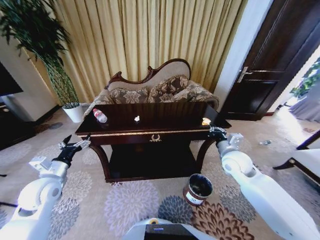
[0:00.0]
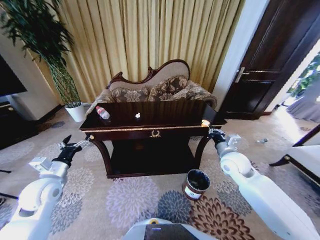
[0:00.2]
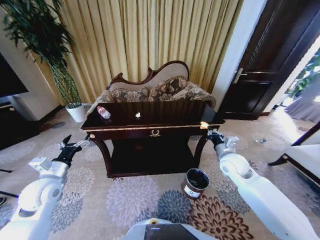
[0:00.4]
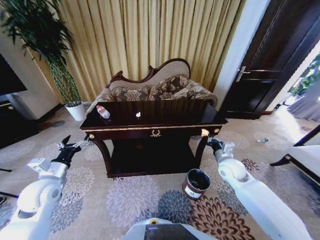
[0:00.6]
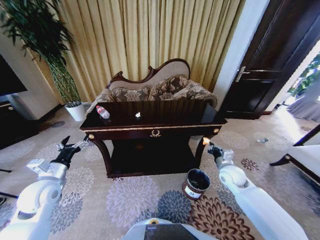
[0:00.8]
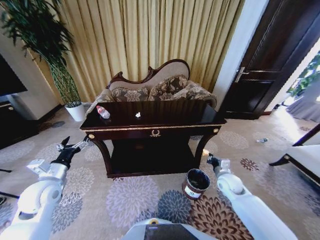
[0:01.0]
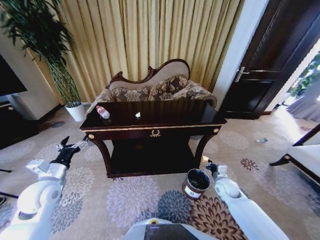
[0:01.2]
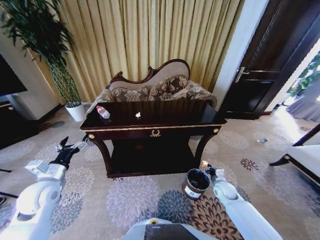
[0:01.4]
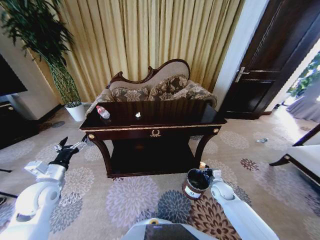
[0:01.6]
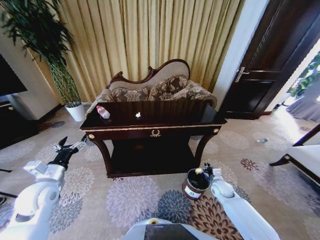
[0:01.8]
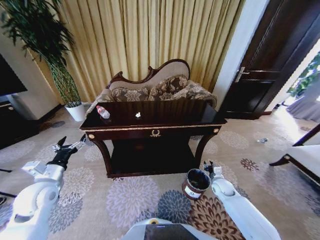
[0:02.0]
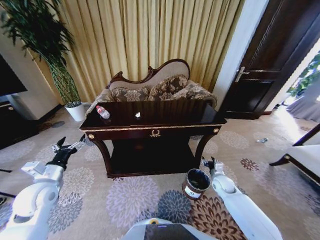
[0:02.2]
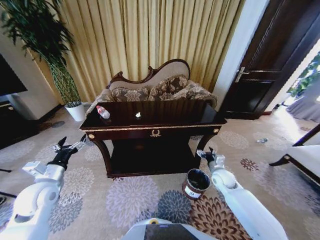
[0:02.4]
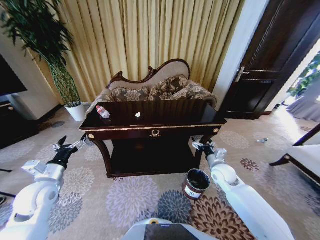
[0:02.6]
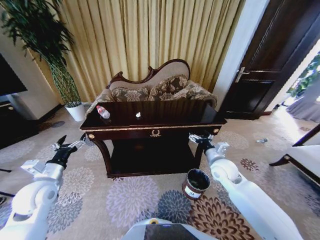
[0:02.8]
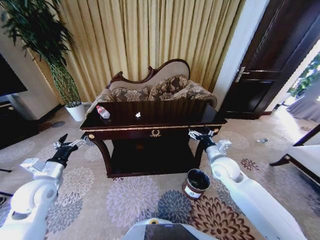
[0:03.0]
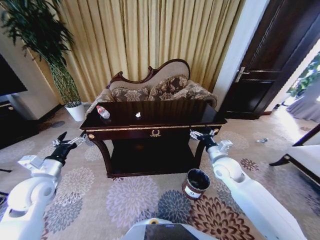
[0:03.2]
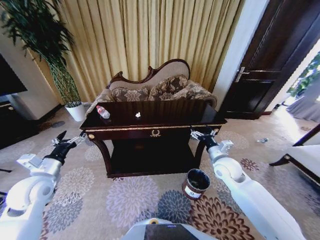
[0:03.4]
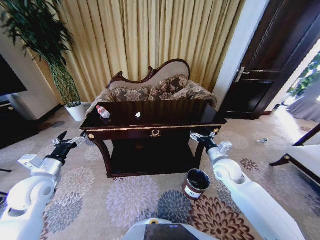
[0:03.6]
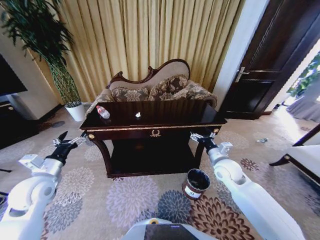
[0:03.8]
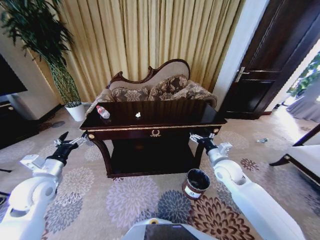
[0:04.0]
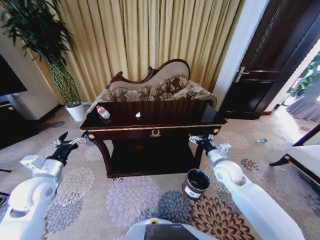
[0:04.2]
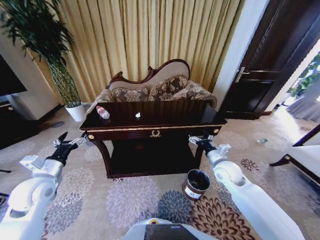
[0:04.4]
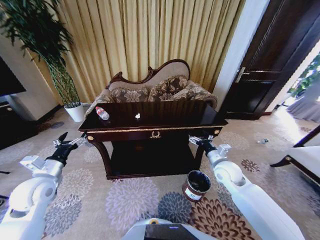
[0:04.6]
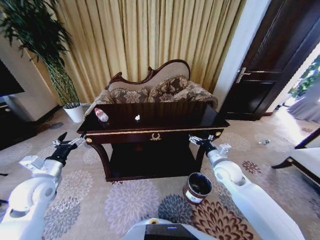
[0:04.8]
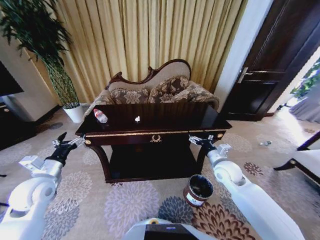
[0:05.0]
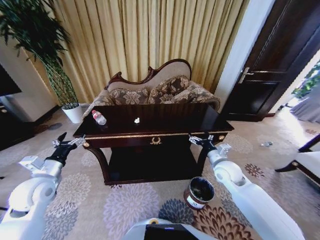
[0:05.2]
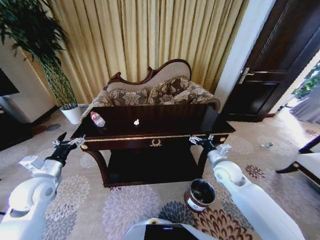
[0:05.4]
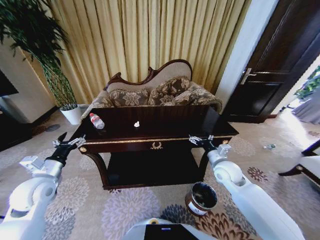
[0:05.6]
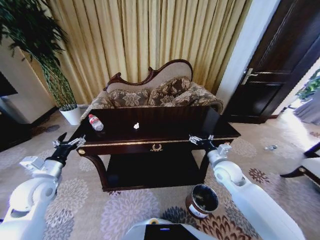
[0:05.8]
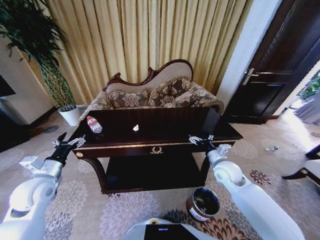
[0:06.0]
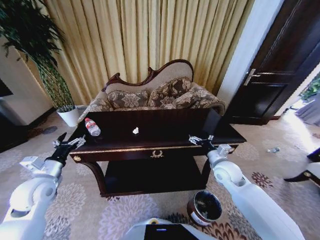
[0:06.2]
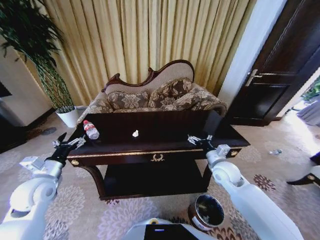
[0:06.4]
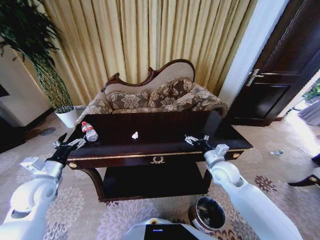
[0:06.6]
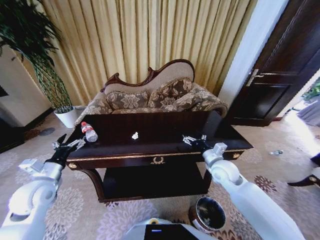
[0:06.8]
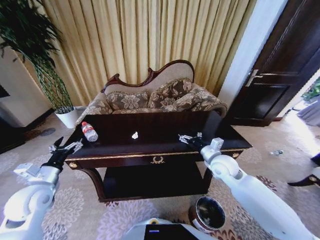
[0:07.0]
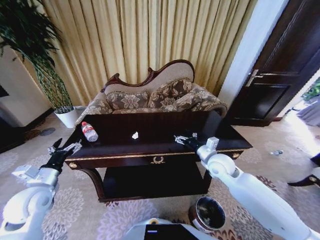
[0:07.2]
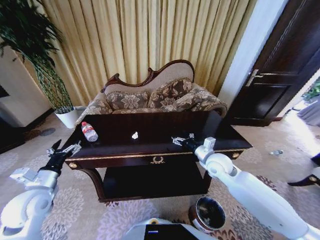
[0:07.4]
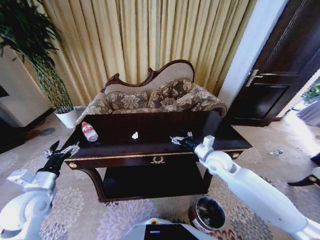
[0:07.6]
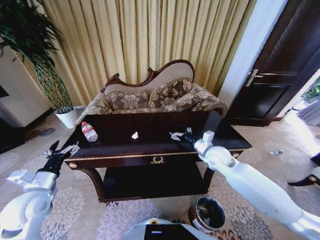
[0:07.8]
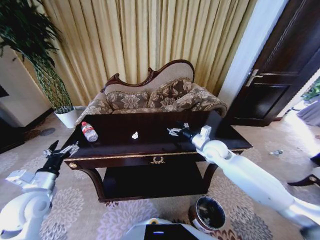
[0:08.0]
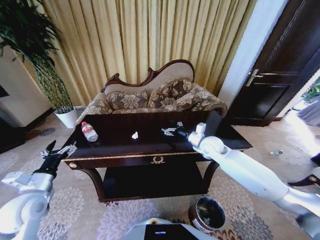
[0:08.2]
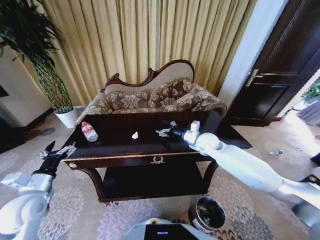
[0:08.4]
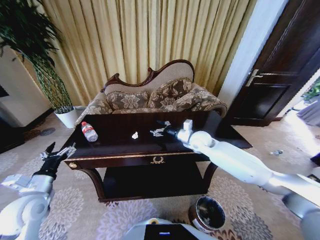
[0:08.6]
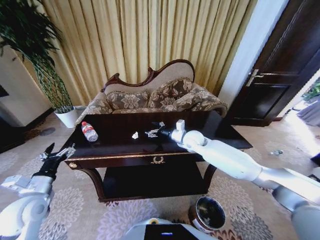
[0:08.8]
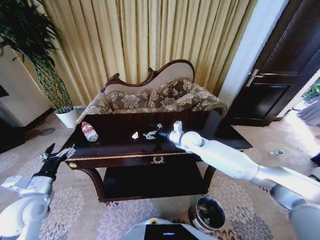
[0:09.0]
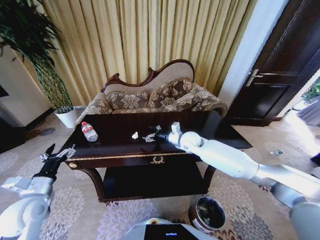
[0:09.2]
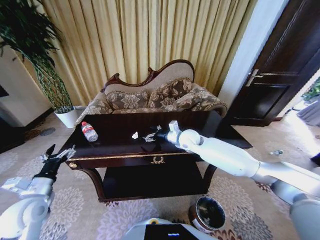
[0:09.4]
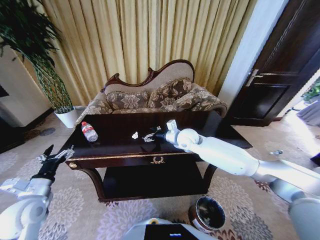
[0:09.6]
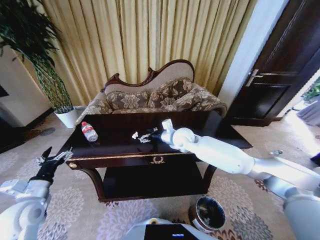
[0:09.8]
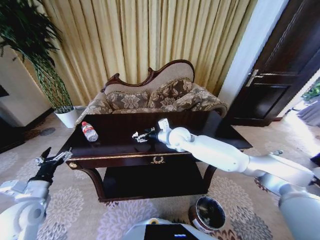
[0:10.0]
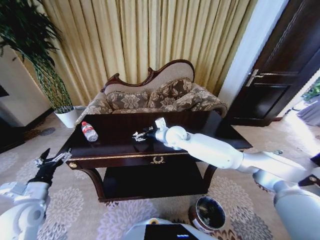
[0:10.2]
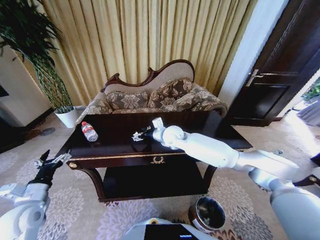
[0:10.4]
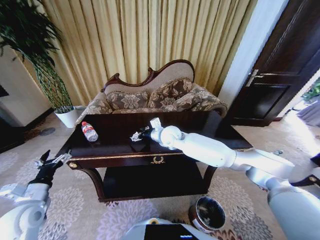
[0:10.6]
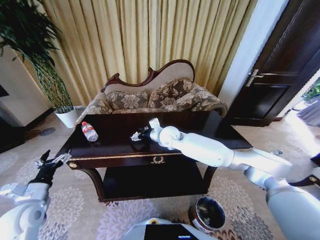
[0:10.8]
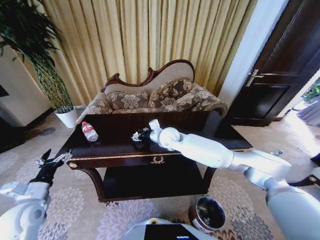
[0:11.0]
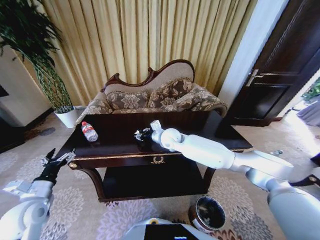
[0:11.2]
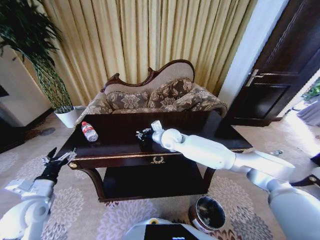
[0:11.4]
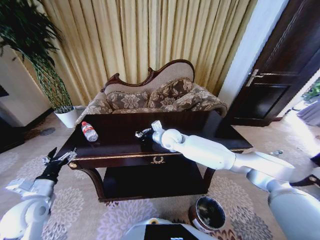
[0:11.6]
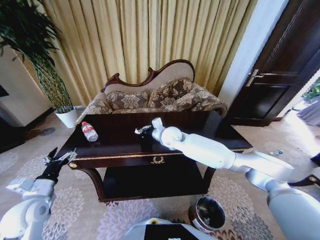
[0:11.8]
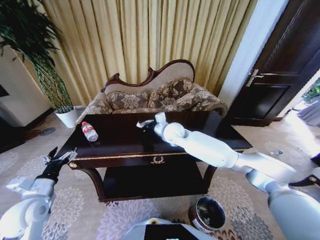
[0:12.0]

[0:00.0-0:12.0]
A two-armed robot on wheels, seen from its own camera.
Task of the whole recording: Move to the front of the table and place the trash on the table into the trash bin.
0:00.0 to 0:01.6: The right gripper is displaced downward by approximately 25 cm.
0:01.6 to 0:03.0: The right gripper travels upward by approximately 20 cm, and opens.
0:03.0 to 0:04.4: The grippers stay close to where they were, moving slightly.
0:06.0 to 0:07.6: The right gripper ends up roughly 5 cm from where it was.
0:07.6 to 0:09.0: The right gripper moves forward and to the left, some 15 cm.
0:09.0 to 0:10.4: The right gripper travels to the left by about 10 cm.
0:10.4 to 0:12.0: The right gripper closes up.

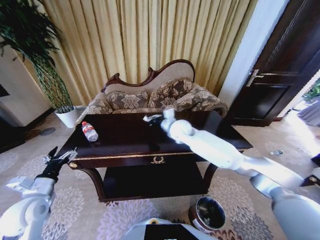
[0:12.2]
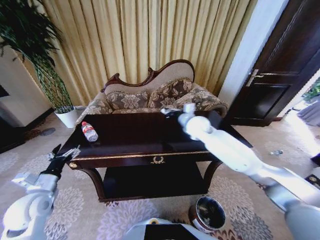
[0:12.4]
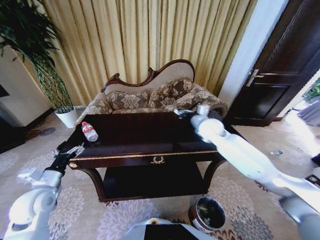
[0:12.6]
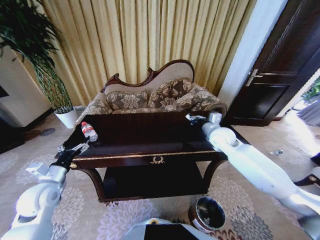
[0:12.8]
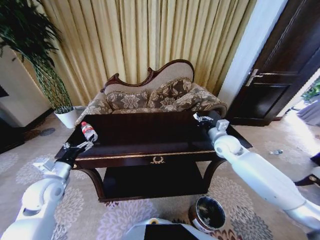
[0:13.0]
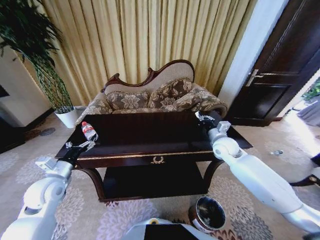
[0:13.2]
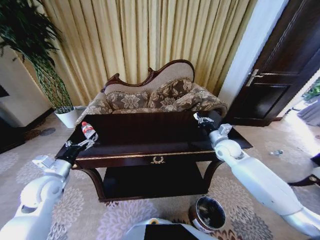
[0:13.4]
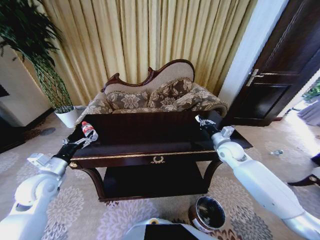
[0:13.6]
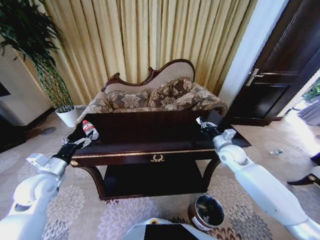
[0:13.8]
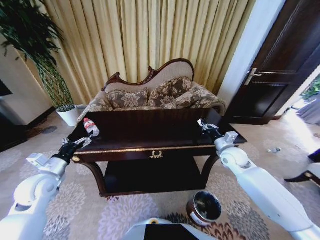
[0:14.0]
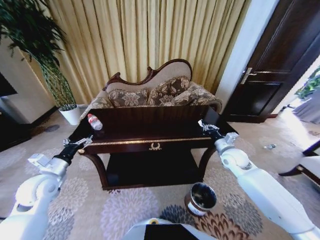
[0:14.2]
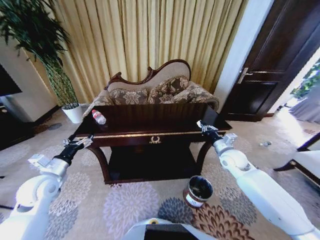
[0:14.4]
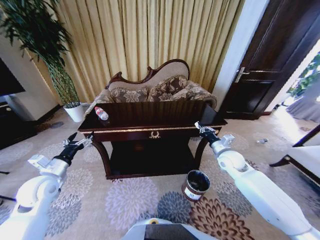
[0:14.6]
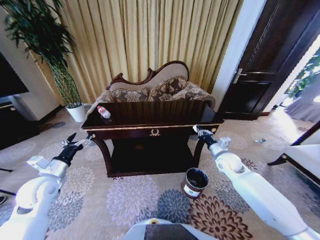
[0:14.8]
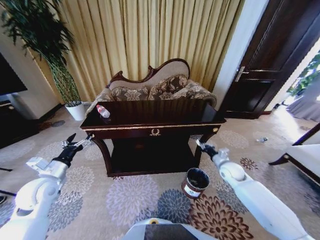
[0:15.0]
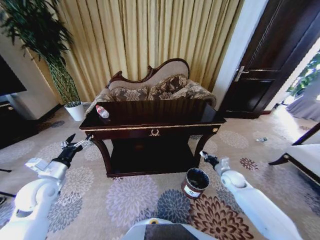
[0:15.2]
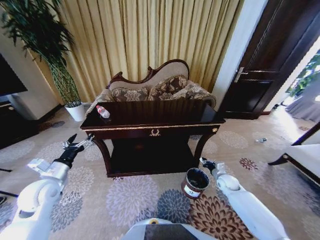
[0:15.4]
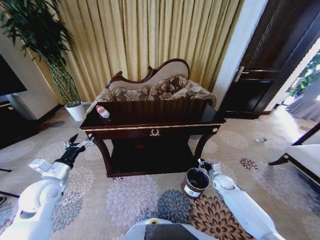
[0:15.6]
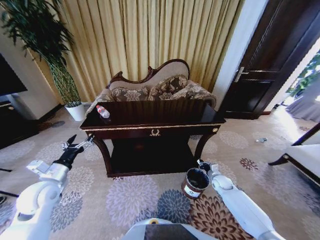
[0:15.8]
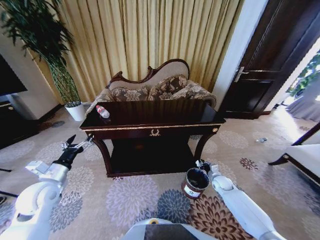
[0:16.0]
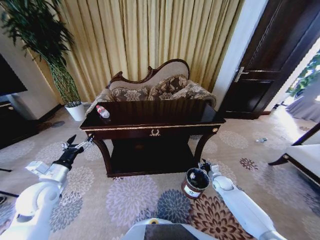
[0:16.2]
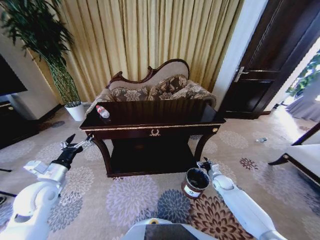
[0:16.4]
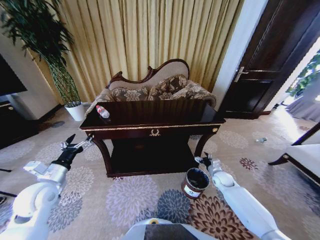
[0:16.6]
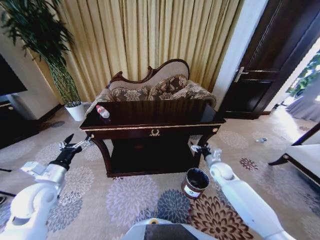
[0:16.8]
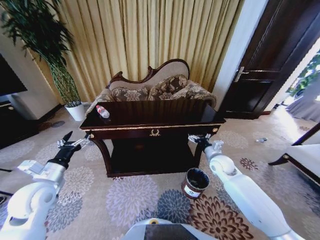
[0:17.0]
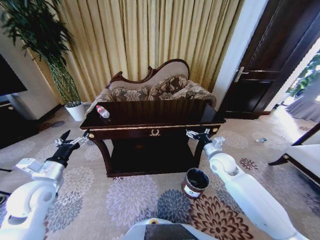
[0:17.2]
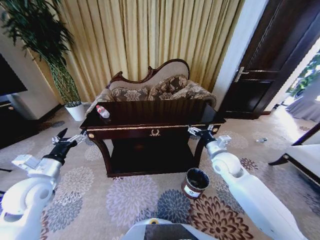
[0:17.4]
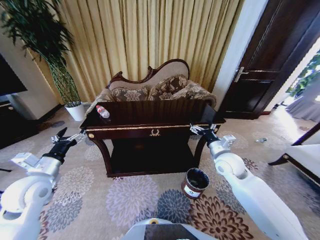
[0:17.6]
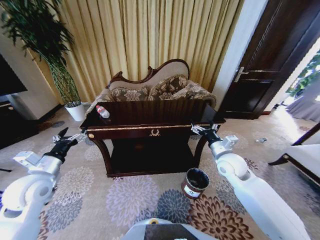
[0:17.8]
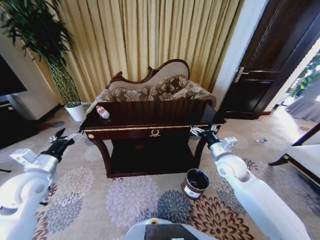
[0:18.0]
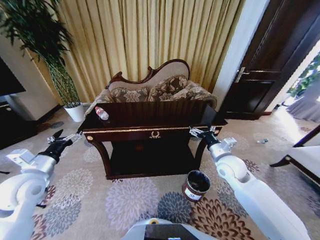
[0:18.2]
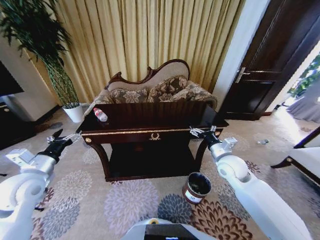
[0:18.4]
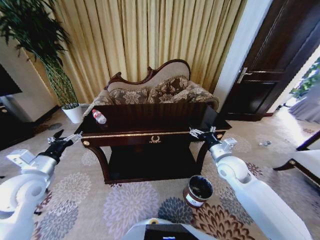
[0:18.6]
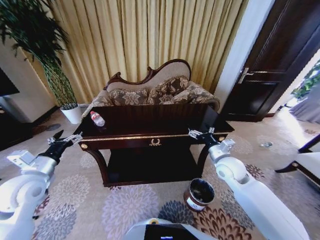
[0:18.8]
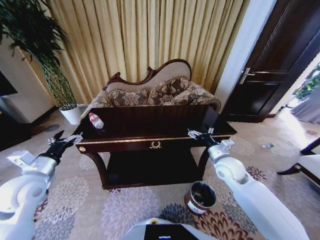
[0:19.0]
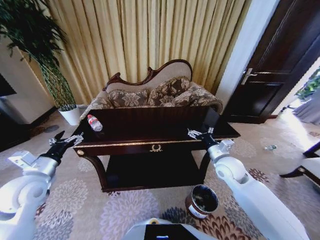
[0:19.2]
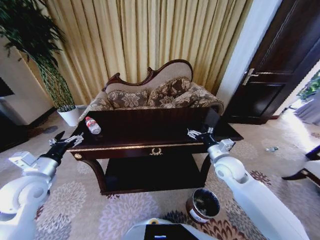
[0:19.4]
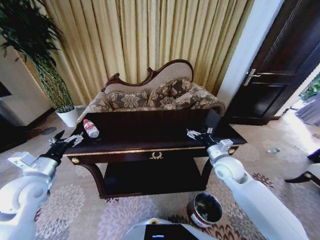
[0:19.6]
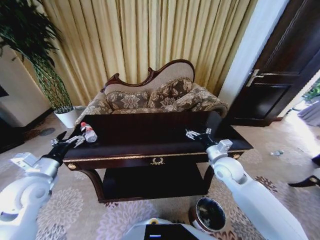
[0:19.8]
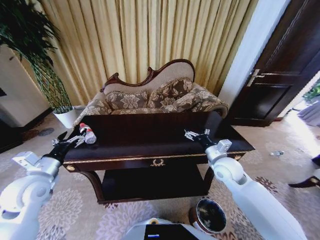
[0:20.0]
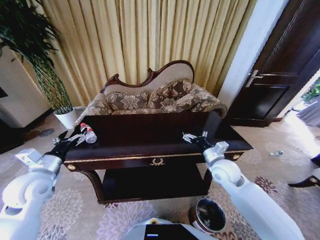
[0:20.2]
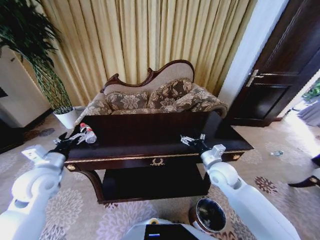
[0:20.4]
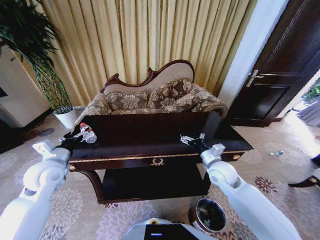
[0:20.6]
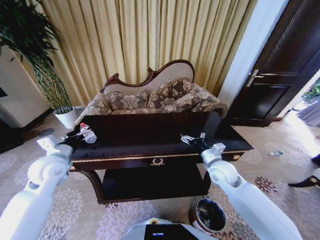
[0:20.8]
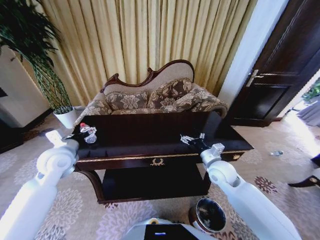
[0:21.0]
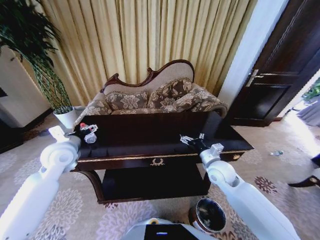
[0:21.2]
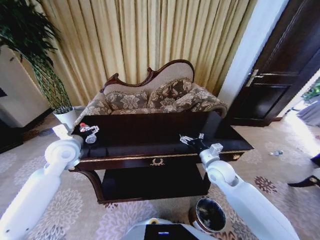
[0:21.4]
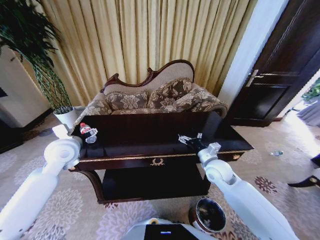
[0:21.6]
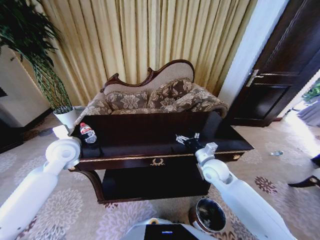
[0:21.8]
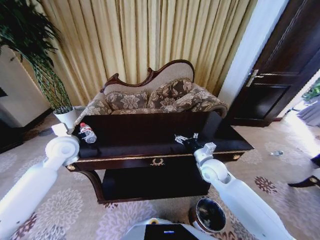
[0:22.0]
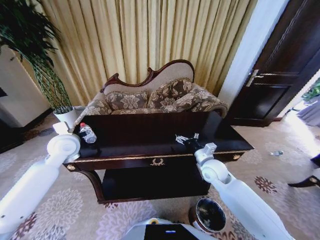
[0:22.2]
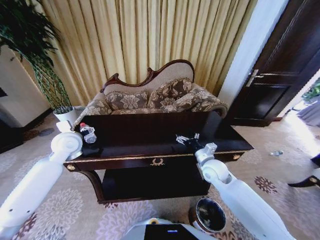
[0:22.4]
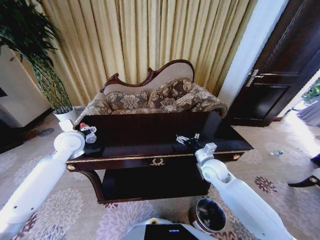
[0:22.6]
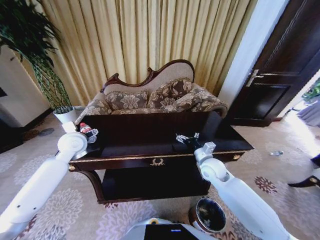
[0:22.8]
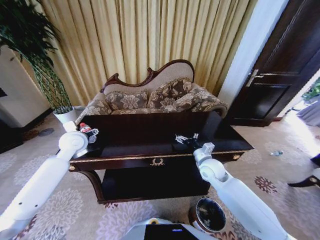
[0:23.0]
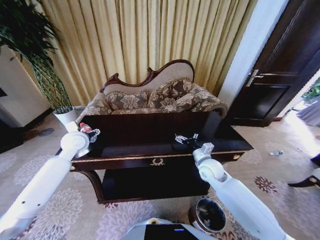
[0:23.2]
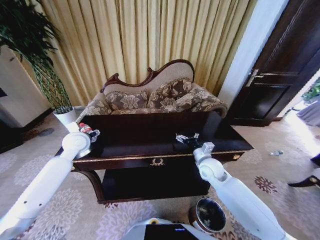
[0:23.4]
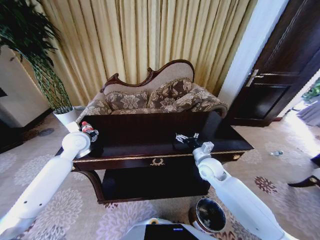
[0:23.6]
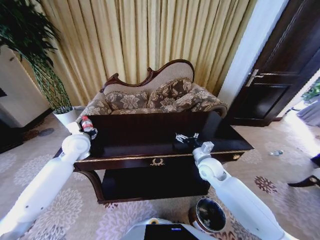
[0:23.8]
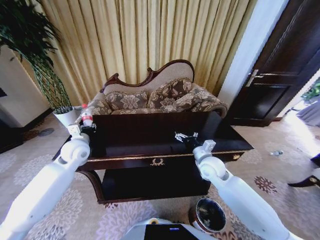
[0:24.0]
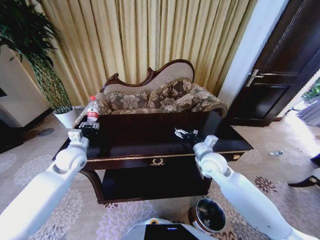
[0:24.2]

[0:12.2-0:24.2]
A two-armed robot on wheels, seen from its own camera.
Task of the whole recording: Move to the front of the table and place the trash on the table into the trash bin.
0:12.2 to 0:13.8: The left gripper is displaced forward by roughly 5 cm; the right gripper travels to the right and downward by roughly 25 cm.
0:13.8 to 0:15.2: The right gripper travels downward by approximately 15 cm.
0:15.2 to 0:16.6: The right gripper opens its fingers.
0:16.6 to 0:18.2: The right gripper goes roughly 25 cm upward and to the left. Meanwhile the left gripper ends up approximately 5 cm from where it was.
0:19.8 to 0:21.2: The left gripper shifts about 10 cm forward and to the right.
0:21.2 to 0:22.6: The left gripper shifts roughly 5 cm forward.
0:22.6 to 0:24.2: The left gripper heads downward, covering some 5 cm, and closes up.
